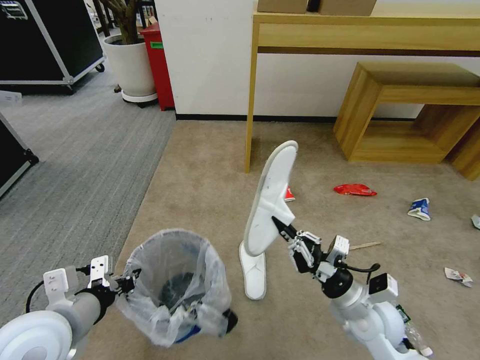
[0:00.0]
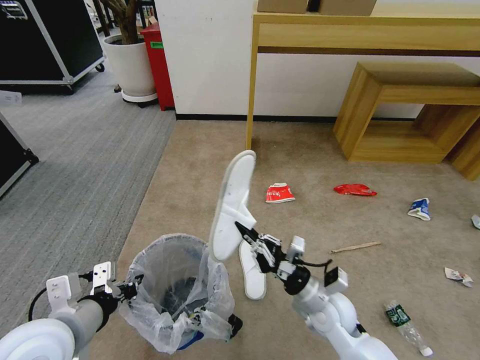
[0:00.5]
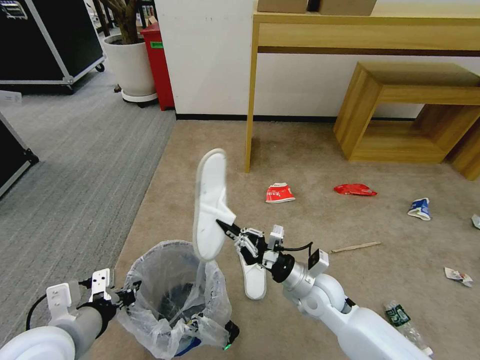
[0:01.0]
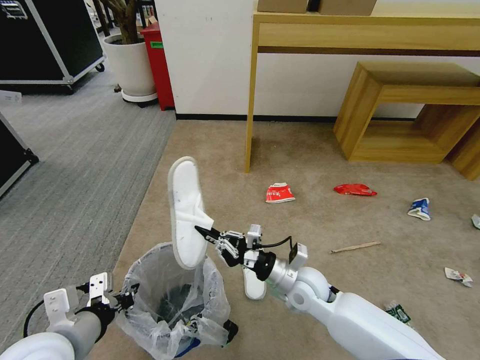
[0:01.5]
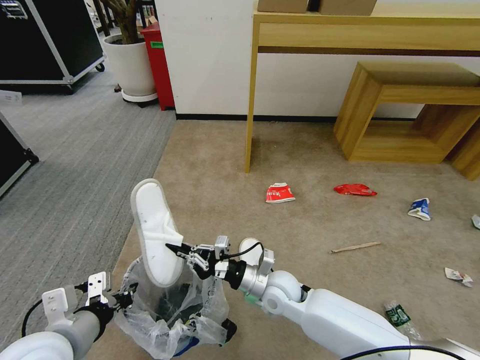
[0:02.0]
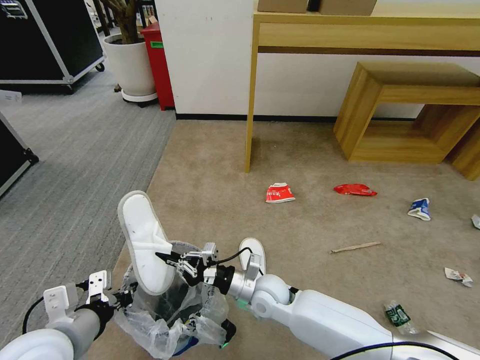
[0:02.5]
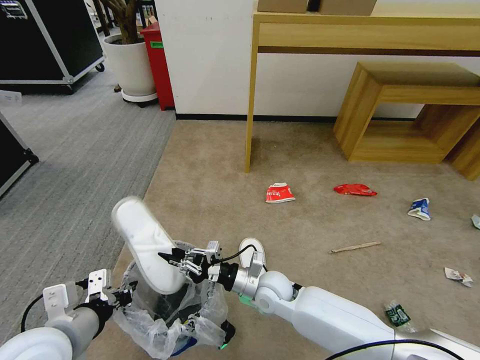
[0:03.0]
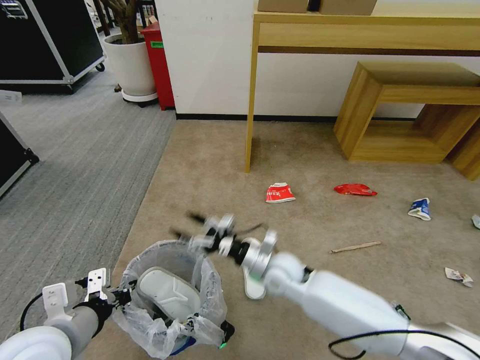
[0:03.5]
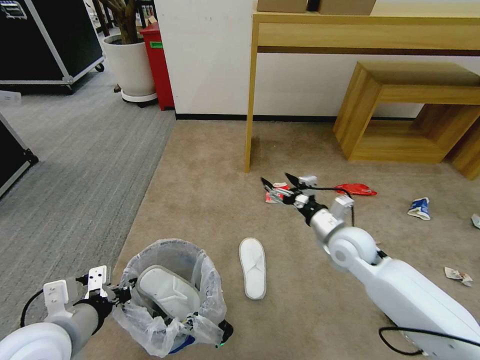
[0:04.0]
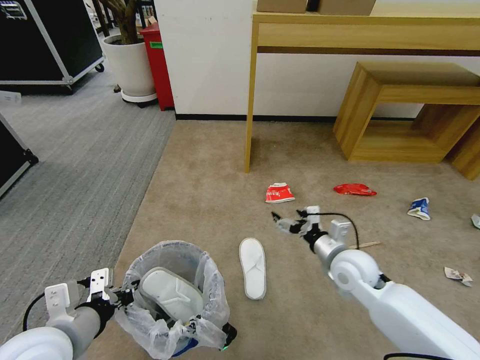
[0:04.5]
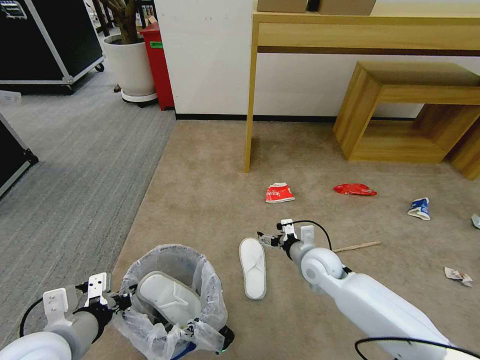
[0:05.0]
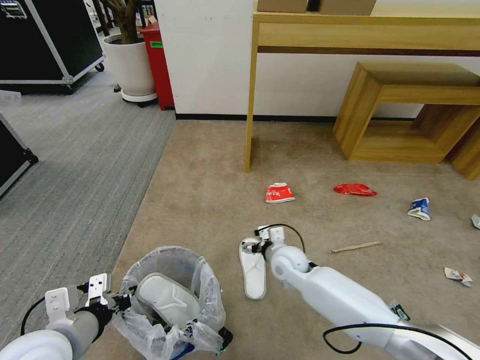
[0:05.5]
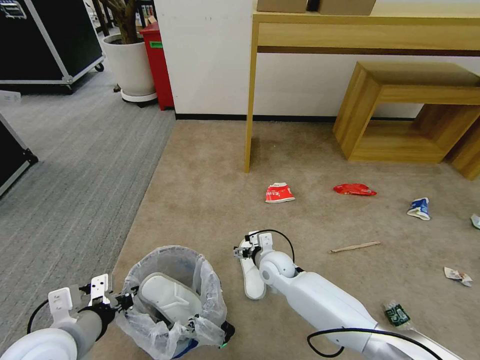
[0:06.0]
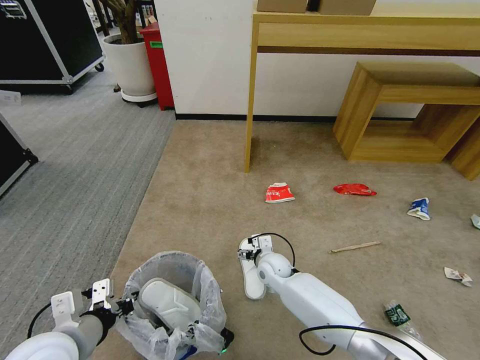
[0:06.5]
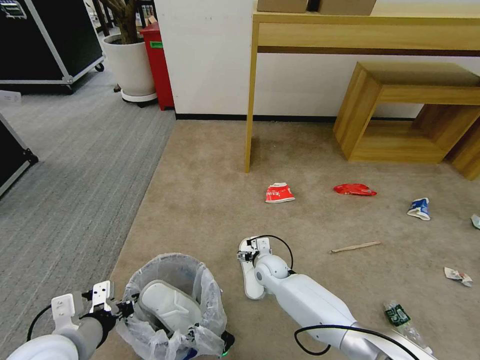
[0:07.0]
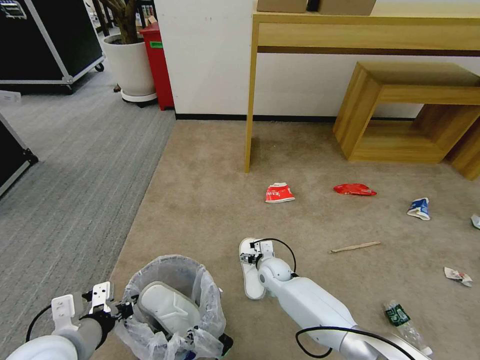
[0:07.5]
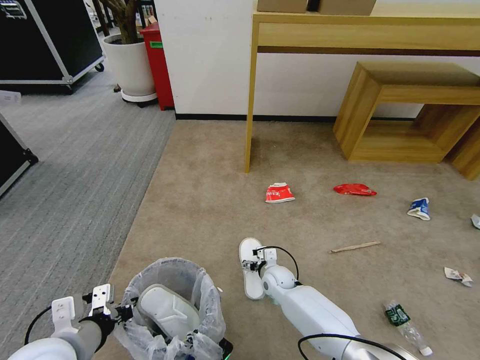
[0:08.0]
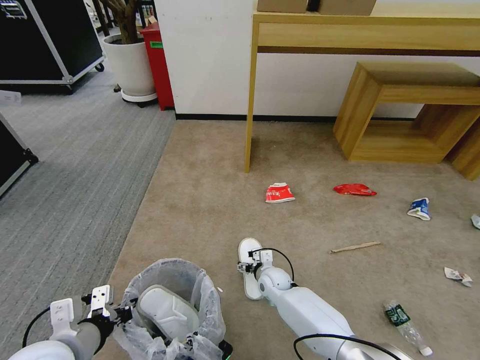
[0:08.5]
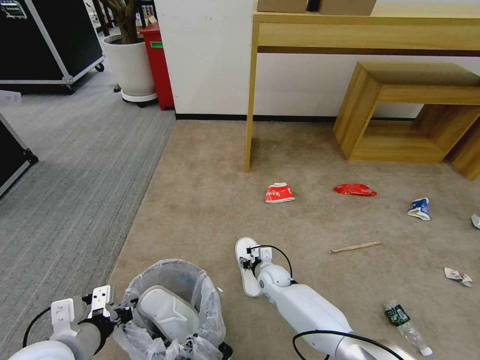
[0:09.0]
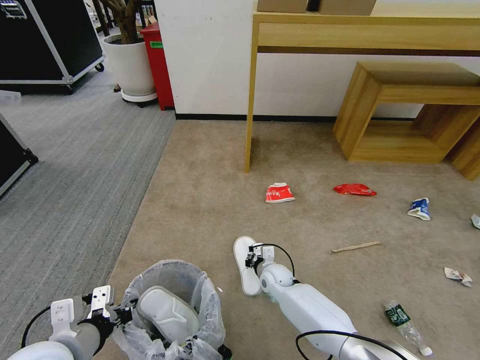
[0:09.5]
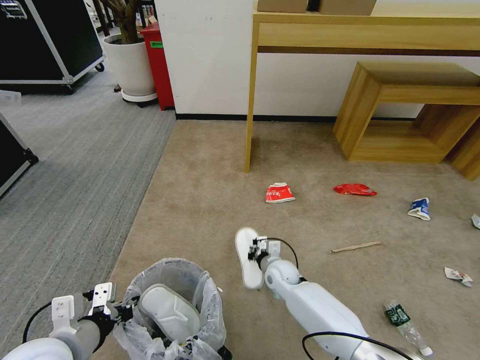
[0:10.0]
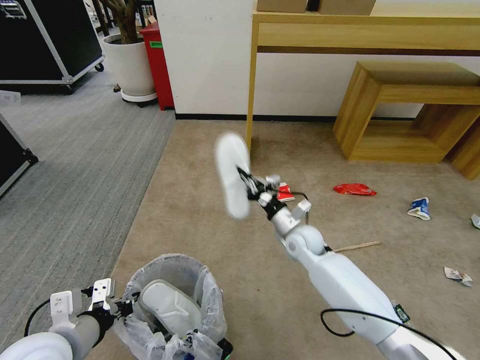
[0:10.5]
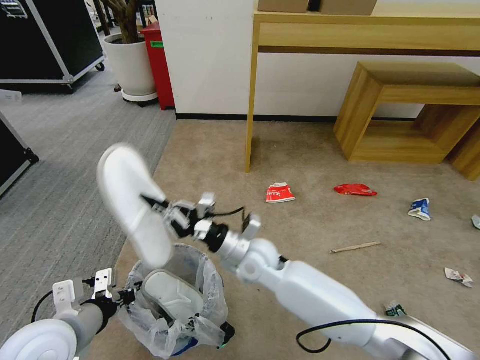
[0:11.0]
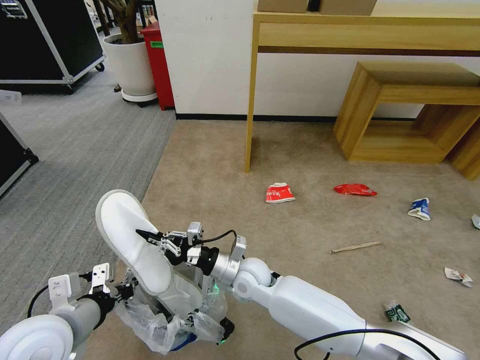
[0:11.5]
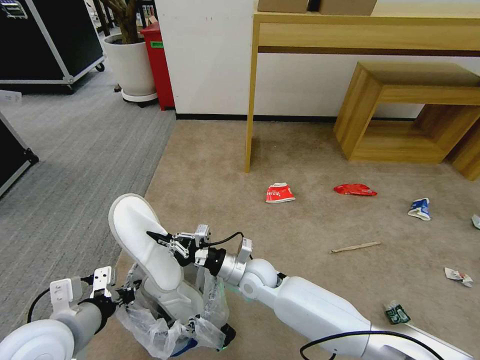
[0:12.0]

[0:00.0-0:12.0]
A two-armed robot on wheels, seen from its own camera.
Task of the whole recording: Pick up the trash bin and place the garbage on the floor into it.
0:00.0 to 0:02.0: The right gripper moves to the left and forward, some 20 cm.
0:02.0 to 0:04.0: The right gripper heads to the right, upward and forward, covering roughly 20 cm, and opens its fingers.
0:04.0 to 0:06.0: The right gripper travels to the left and downward by some 20 cm.
0:06.0 to 0:08.0: The right gripper shifts about 10 cm downward.
0:08.0 to 0:10.0: The right gripper closes.
0:10.0 to 0:12.0: The right gripper heads upward and to the left, covering some 15 cm.

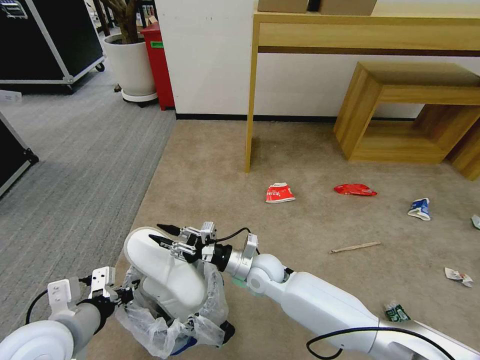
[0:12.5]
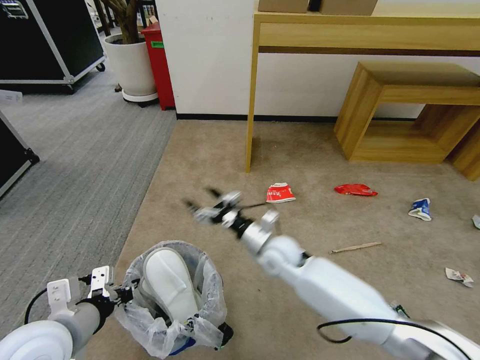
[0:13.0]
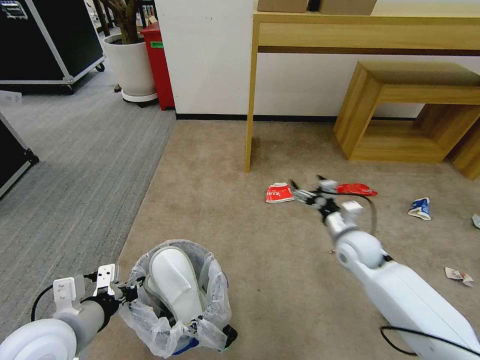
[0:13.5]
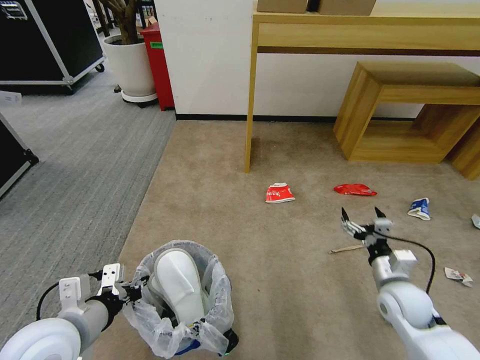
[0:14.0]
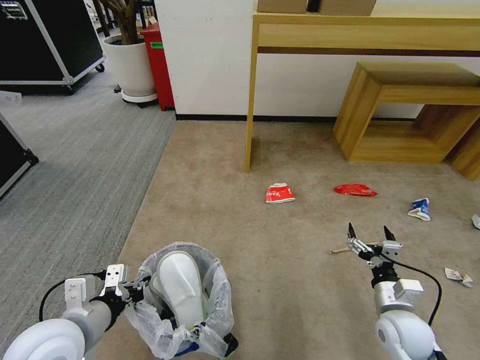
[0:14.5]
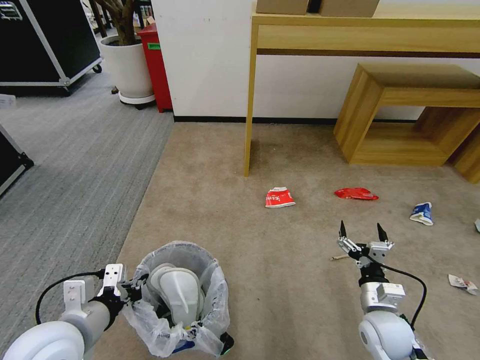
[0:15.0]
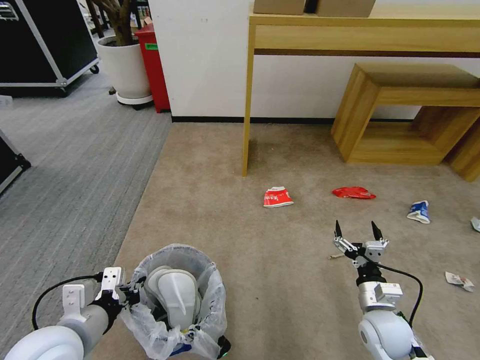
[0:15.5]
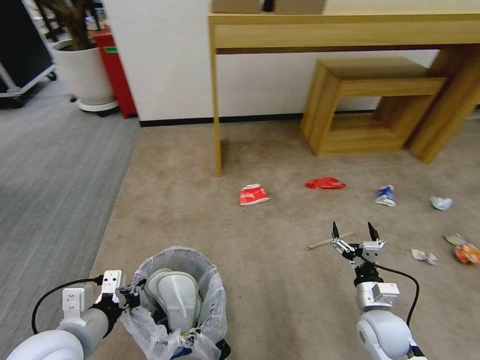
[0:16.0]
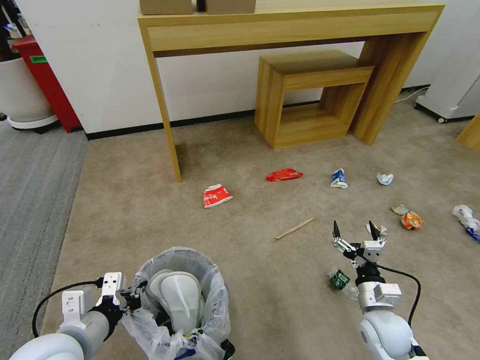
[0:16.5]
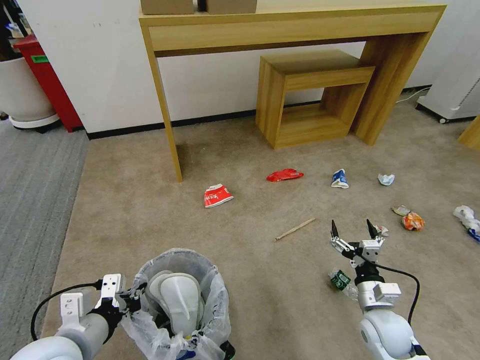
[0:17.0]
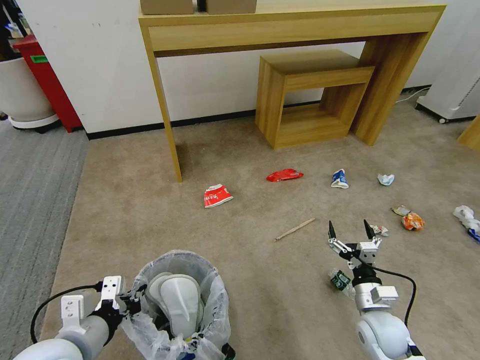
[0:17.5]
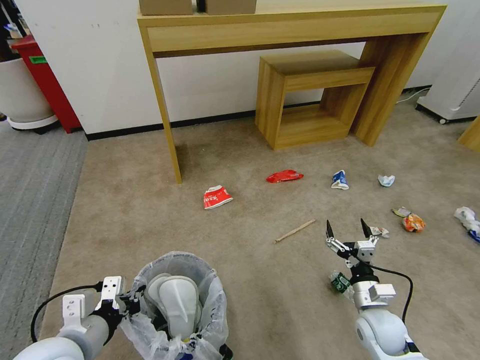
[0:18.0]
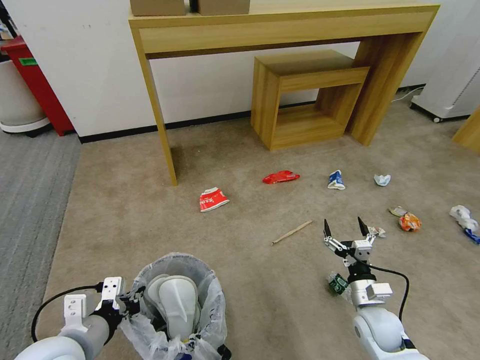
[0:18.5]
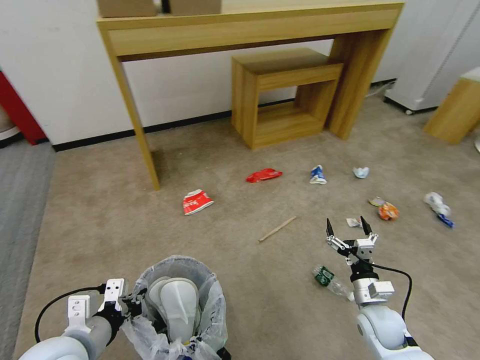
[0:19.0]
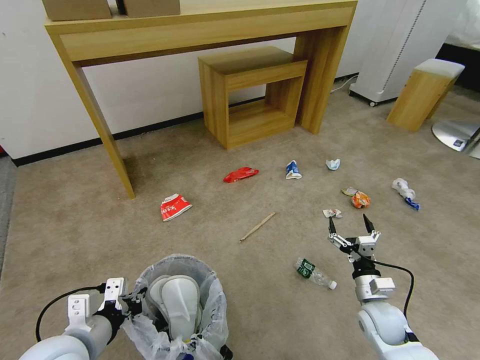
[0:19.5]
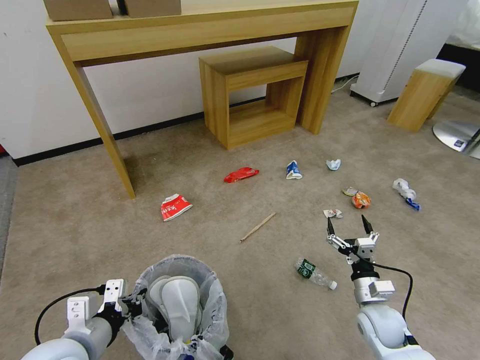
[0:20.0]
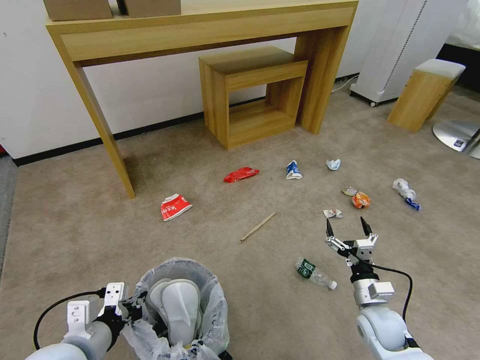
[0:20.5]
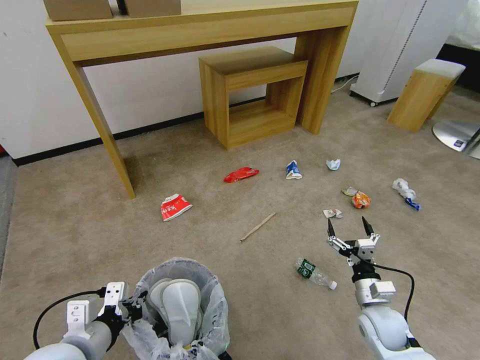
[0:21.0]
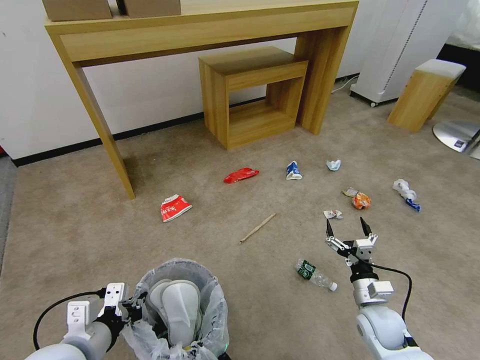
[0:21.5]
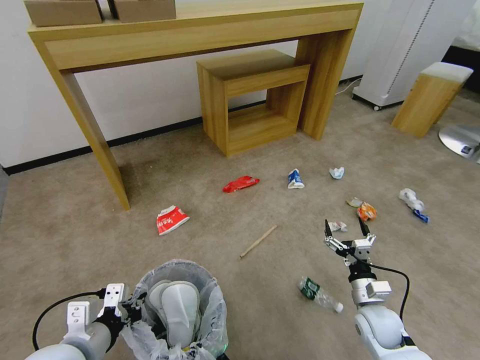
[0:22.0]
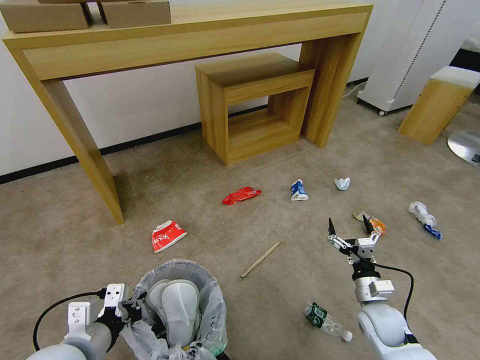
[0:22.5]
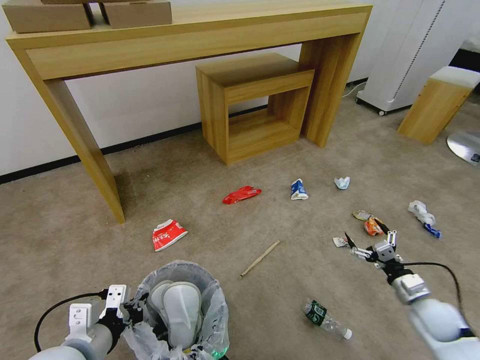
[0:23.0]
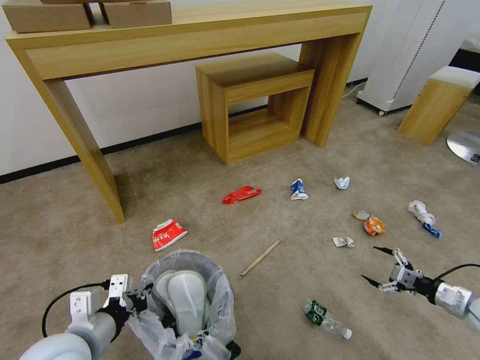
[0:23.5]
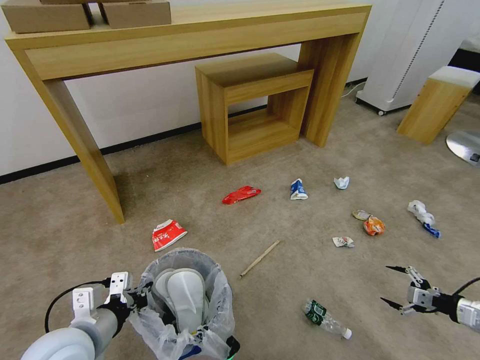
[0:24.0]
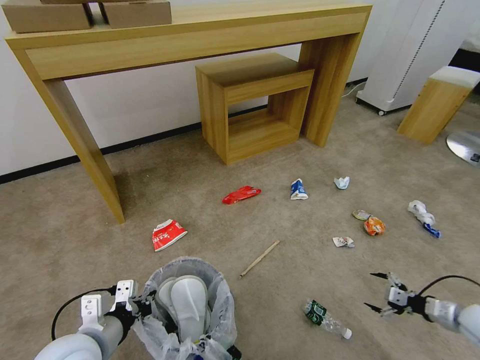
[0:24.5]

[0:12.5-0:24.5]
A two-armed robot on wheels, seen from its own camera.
Task of the whole recording: Pick up the trash bin and place the garbage on the floor into it.
0:12.5 to 0:14.5: The right gripper moves to the right and backward, approximately 30 cm, and opens.
0:16.5 to 0:18.5: The grippers move only a little.
0:22.5 to 0:24.5: The right gripper is displaced to the right by about 25 cm.

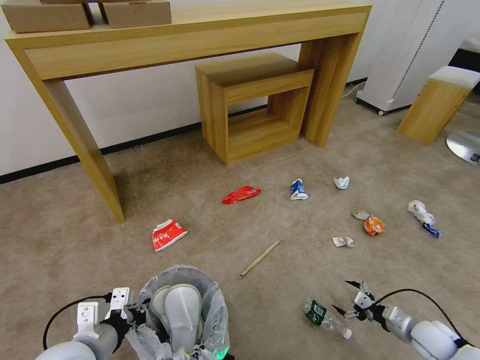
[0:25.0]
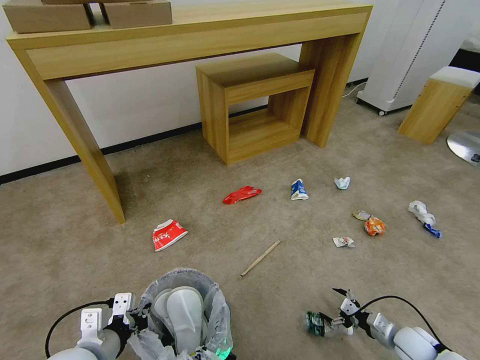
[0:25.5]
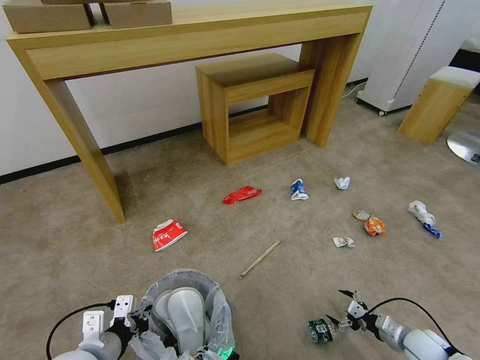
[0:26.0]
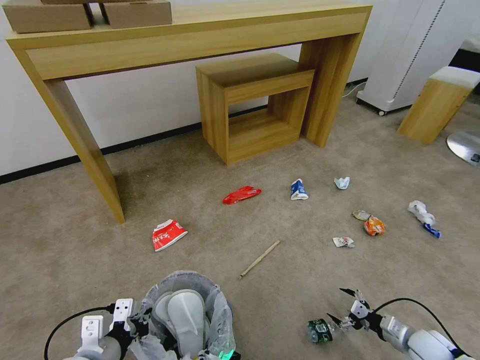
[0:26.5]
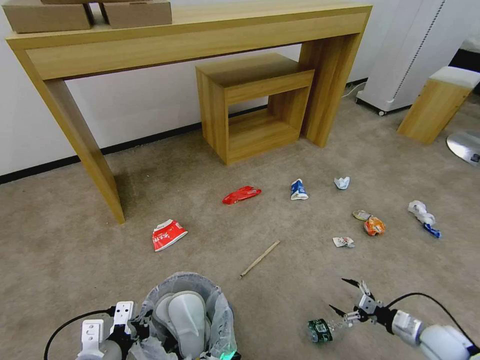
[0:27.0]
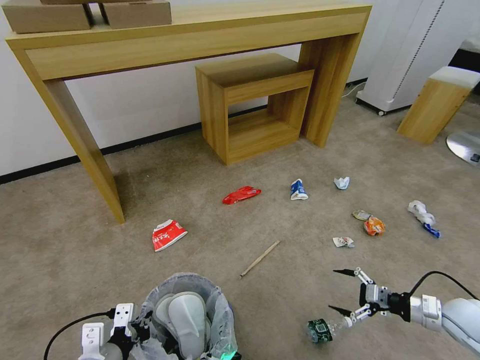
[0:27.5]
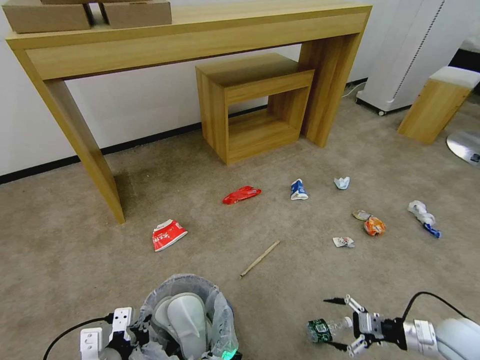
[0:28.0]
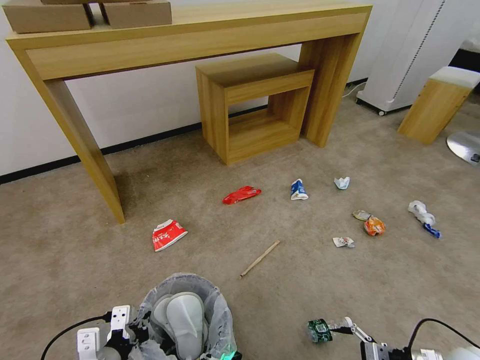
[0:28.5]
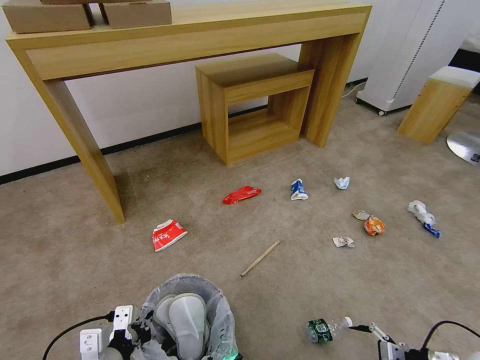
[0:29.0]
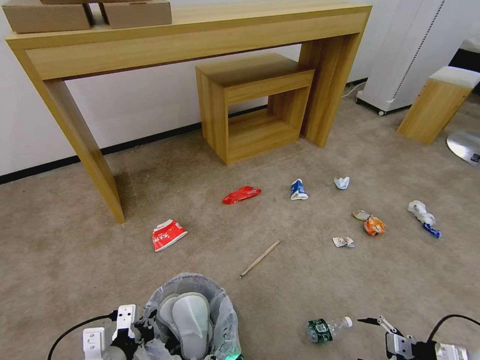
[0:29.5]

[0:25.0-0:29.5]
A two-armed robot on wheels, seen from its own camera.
Task of the whole recording: Pick up the trash bin and place the garbage on the floor into it.
0:25.0 to 0:27.0: The grippers move only a little.
0:27.0 to 0:29.5: The right gripper heads to the right and backward, covering some 10 cm.
